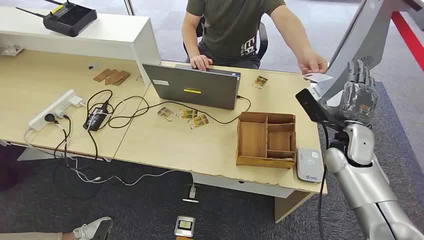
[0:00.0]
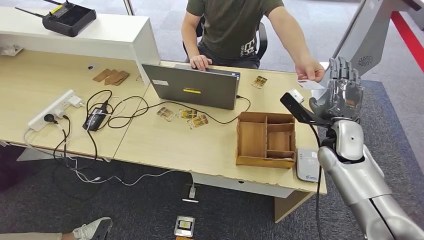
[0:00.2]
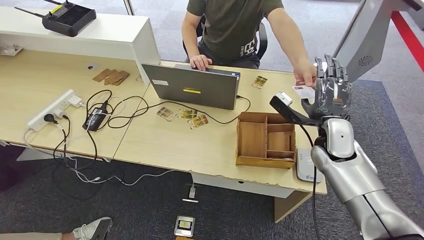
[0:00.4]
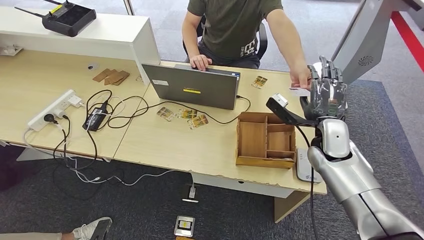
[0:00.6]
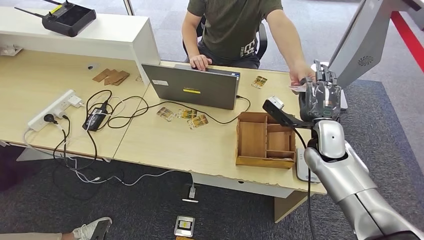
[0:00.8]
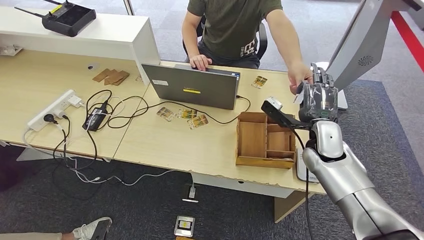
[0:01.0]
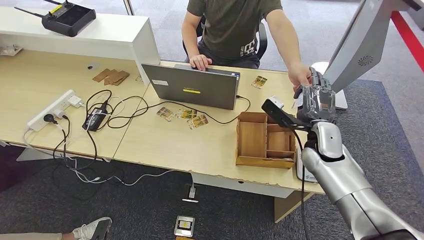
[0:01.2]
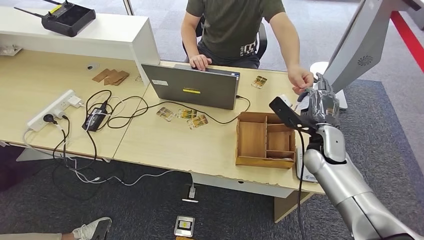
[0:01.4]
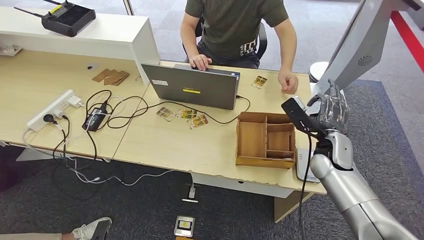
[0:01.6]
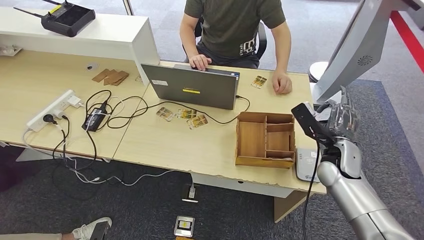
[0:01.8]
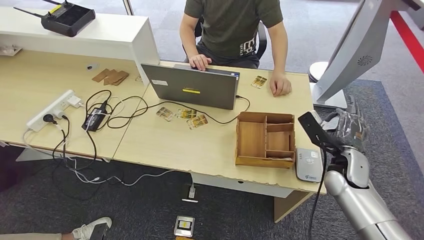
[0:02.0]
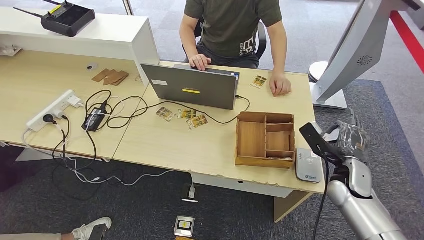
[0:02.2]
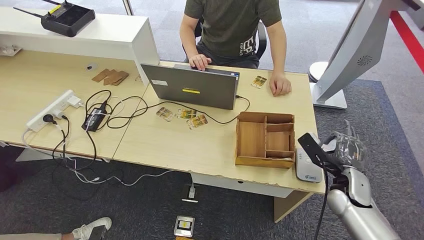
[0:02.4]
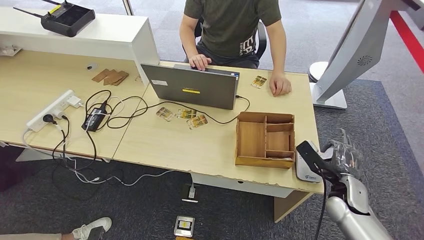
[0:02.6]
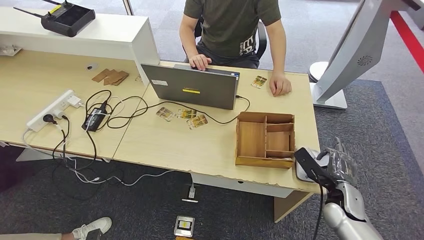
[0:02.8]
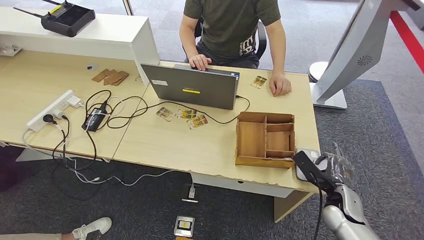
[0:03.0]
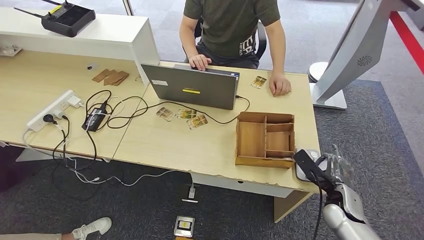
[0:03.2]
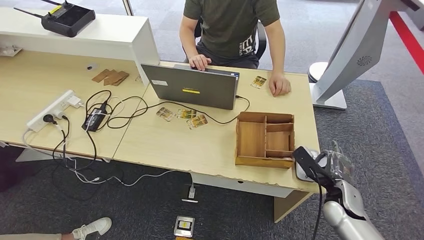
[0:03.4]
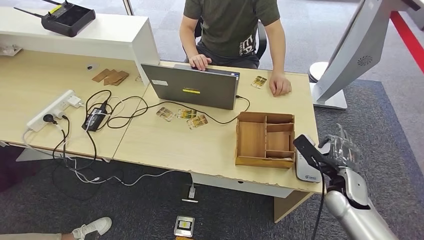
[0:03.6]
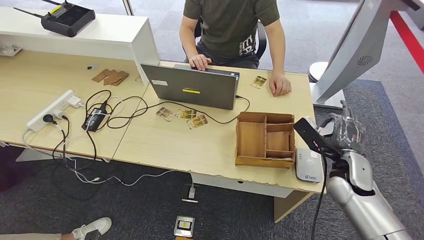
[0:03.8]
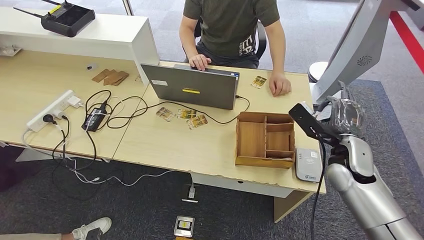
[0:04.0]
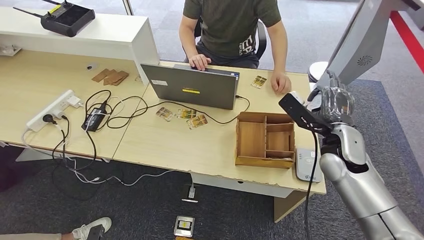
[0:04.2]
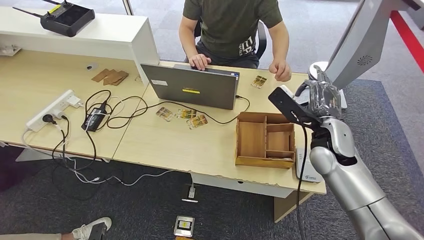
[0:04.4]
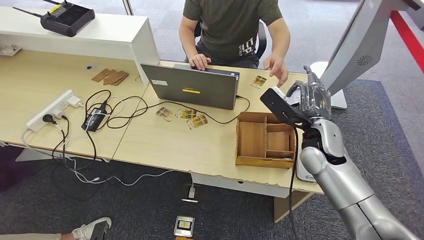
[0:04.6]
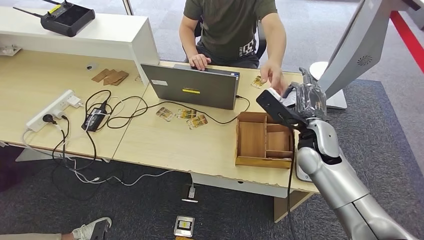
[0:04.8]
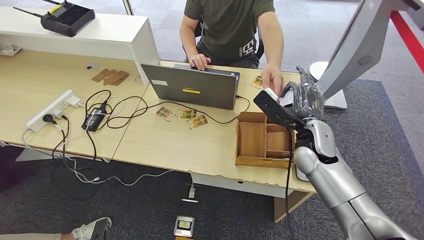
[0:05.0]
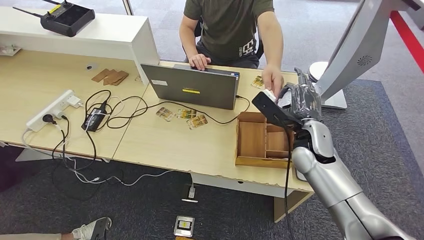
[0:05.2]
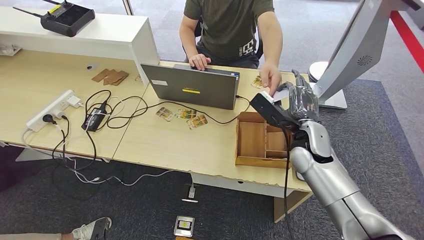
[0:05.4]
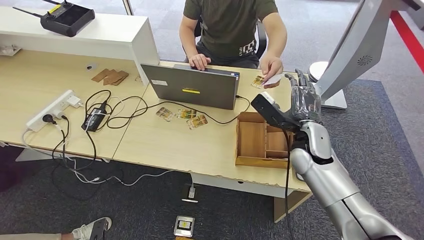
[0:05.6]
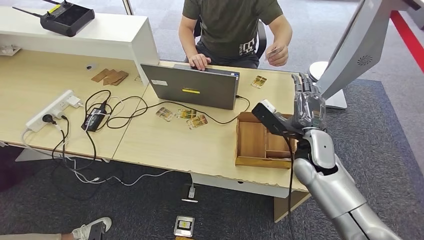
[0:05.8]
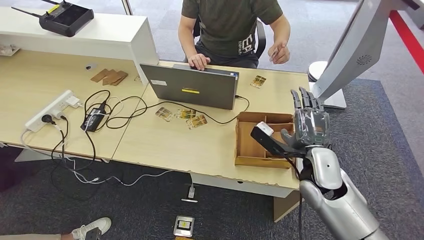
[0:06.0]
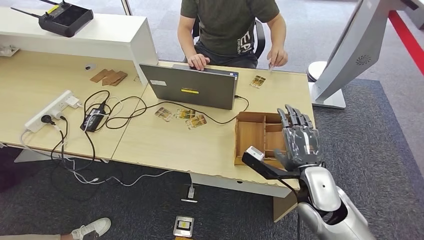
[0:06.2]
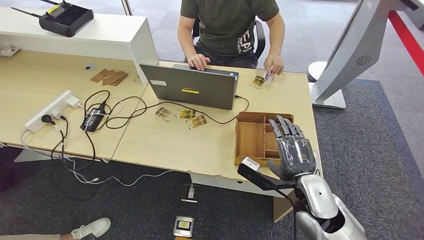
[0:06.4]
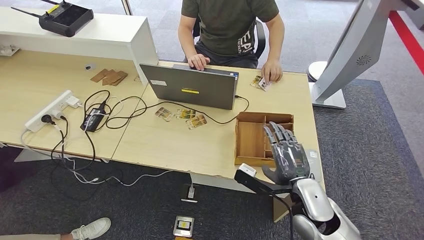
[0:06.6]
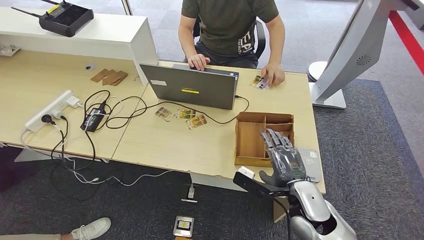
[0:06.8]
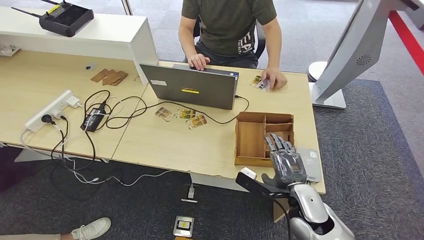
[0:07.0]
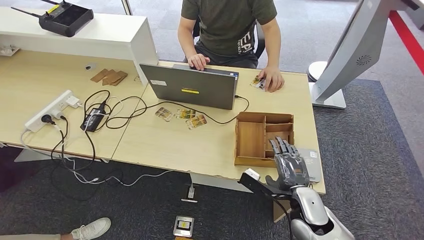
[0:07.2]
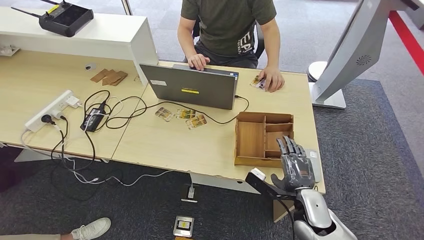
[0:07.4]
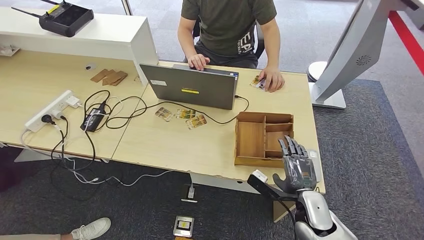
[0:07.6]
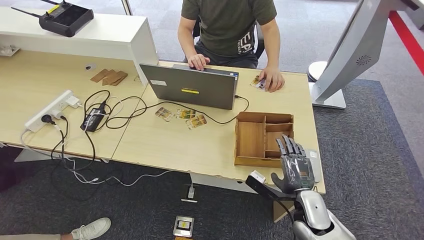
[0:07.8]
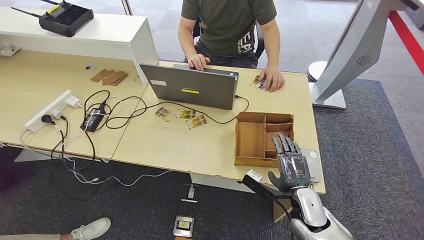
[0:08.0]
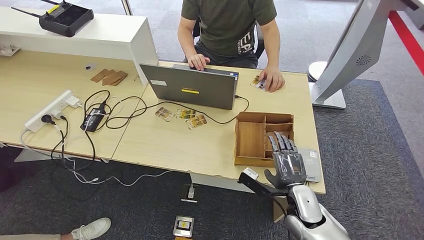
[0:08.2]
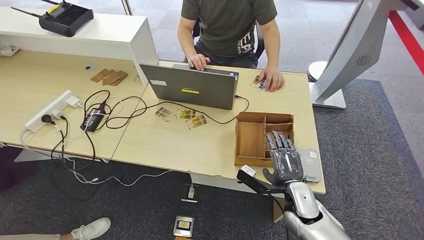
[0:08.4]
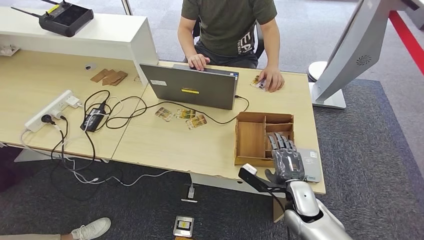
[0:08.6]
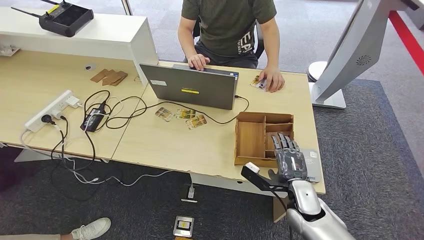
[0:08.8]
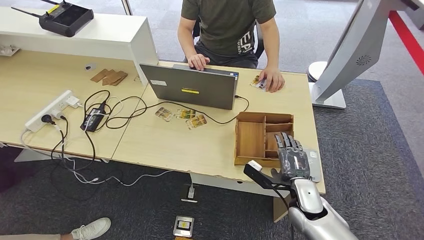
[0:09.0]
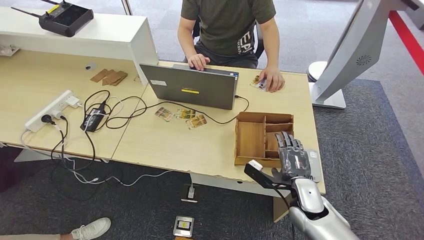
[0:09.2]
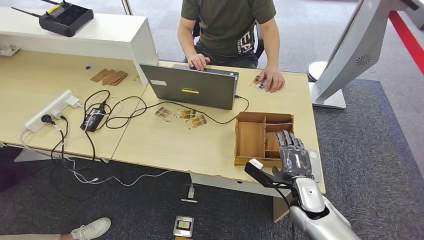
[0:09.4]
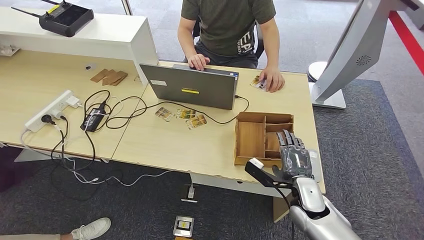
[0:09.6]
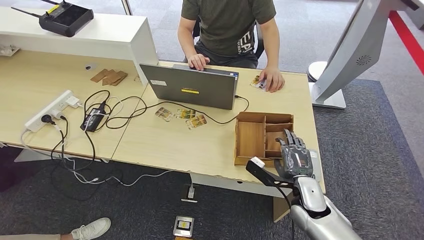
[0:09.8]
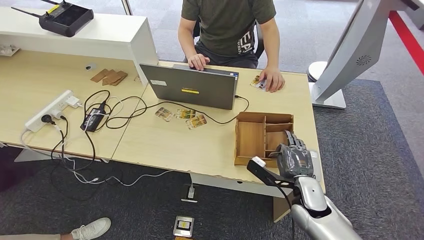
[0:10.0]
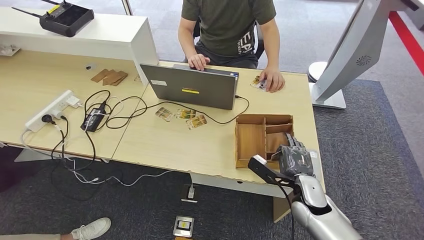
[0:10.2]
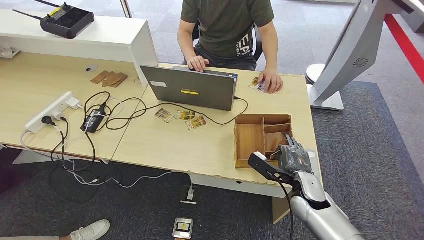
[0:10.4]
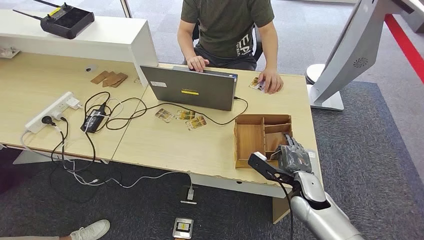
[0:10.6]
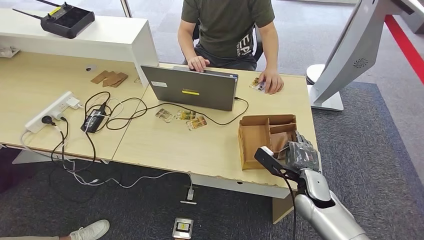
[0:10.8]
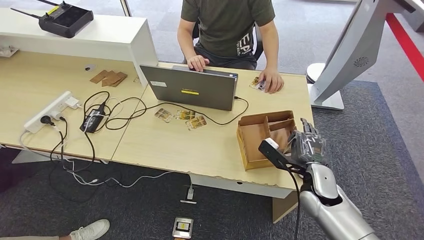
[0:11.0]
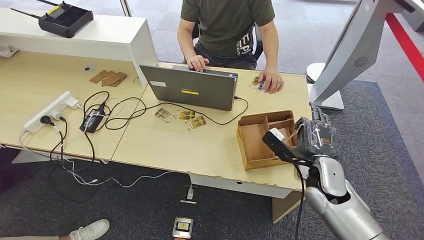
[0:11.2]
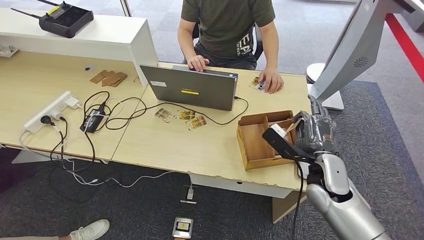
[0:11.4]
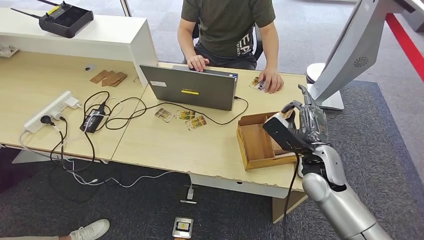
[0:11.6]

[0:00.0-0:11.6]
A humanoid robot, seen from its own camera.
Step, 0:00.0 to 0:02.0: Take the ID card from the person's hand.
Step, 0:02.2 to 0:03.6: Place the ID card on the card reader.
Step, 0:03.8 to 0:06.4: Hand the ID card to the person.
0:01.4 to 0:02.8: The right hand travels downward, backward and to the right by roughly 15 cm.
0:02.8 to 0:04.4: The right hand moves upward, to the left and forward, roughly 20 cm.
0:04.4 to 0:05.8: The hands move only a little.
0:05.8 to 0:07.2: The left hand travels backward by roughly 5 cm. Meanwhile the right hand travels backward and downward by approximately 15 cm.
0:07.2 to 0:10.2: The hands stay close to where they were, moving slightly.
0:10.2 to 0:11.6: The right hand moves upward, about 10 cm.

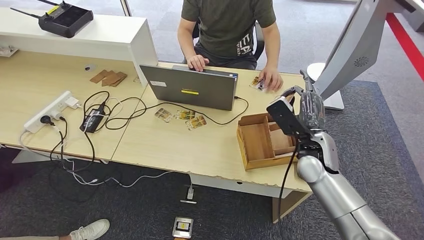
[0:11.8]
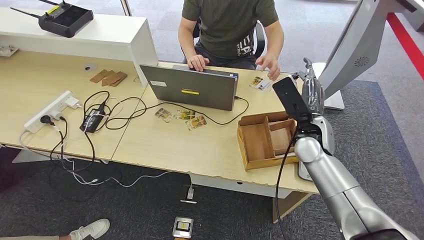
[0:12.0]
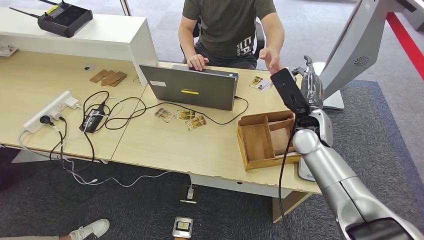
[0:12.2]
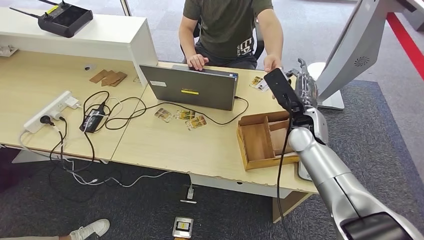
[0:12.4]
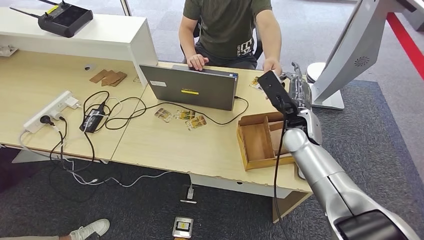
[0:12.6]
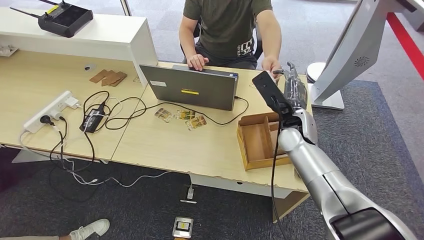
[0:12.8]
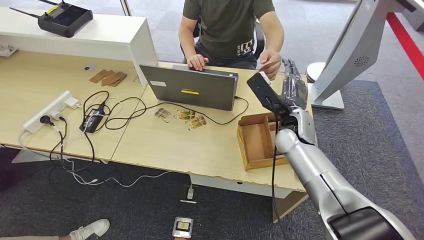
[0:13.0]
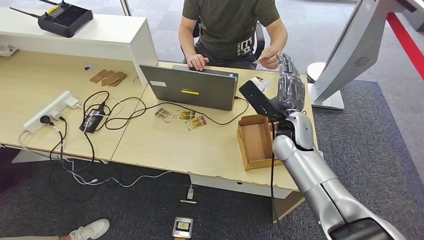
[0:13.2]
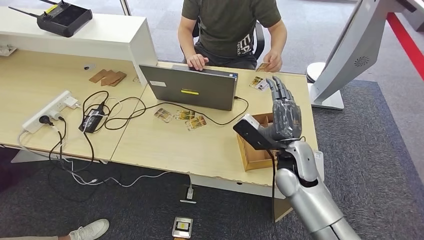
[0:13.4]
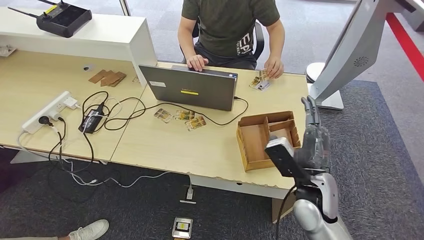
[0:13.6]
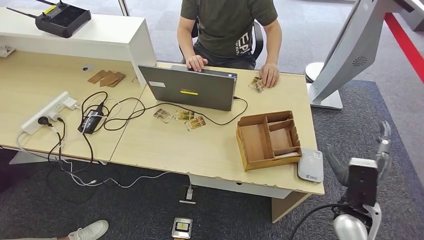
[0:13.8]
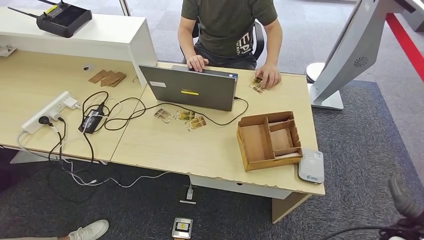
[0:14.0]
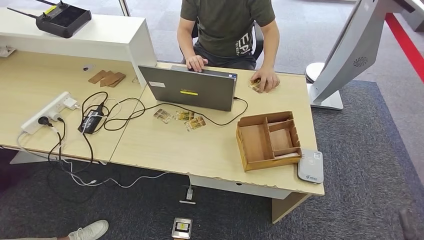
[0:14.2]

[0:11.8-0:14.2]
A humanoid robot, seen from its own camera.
Step, 0:12.4 to 0:14.2: Hand the room key to the person.
0:11.8 to 0:13.0: The right hand goes roughly 5 cm forward.
0:13.0 to 0:14.2: The left hand travels backward by about 5 cm. The right hand is displaced to the right, backward and downward by roughly 40 cm.

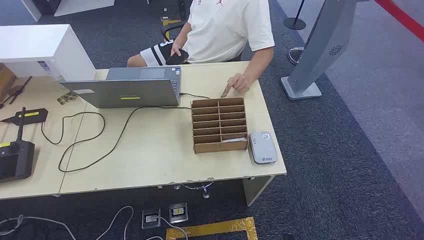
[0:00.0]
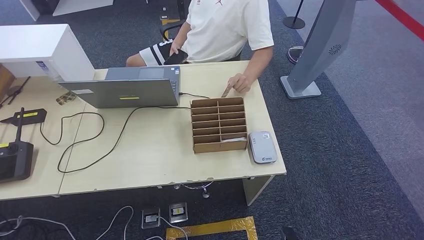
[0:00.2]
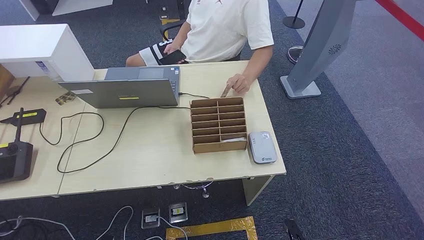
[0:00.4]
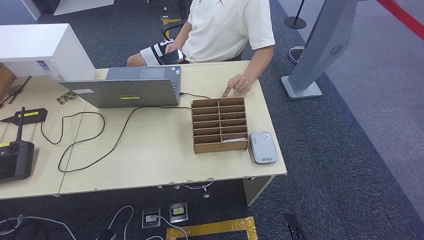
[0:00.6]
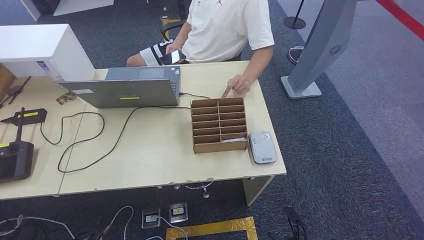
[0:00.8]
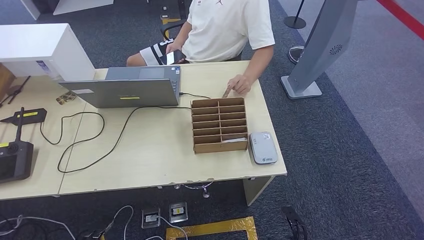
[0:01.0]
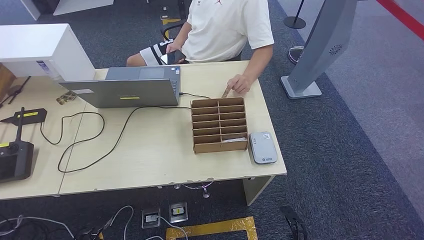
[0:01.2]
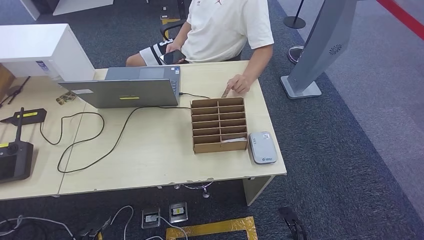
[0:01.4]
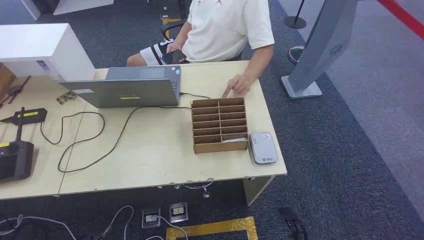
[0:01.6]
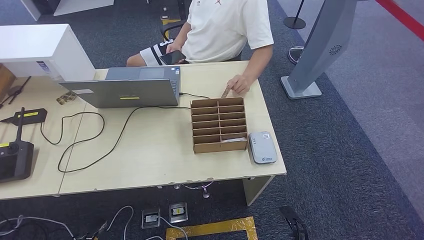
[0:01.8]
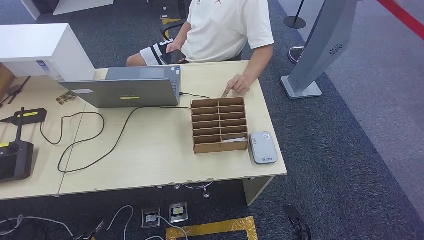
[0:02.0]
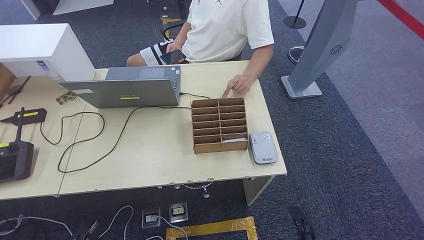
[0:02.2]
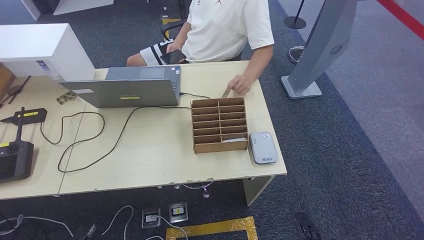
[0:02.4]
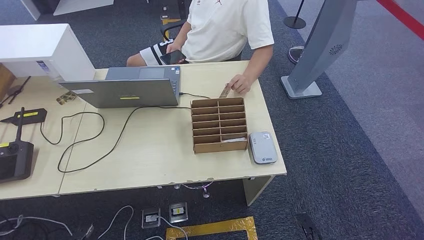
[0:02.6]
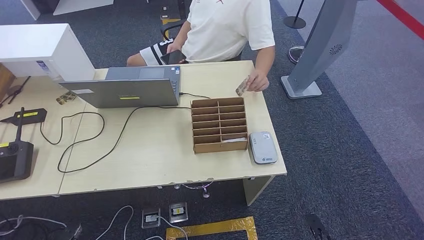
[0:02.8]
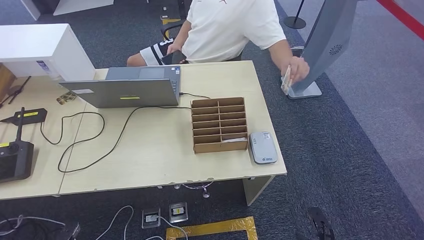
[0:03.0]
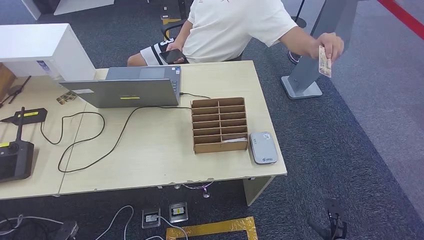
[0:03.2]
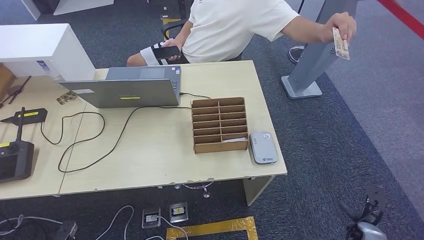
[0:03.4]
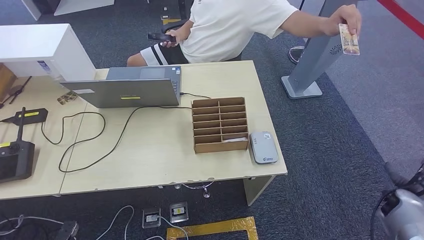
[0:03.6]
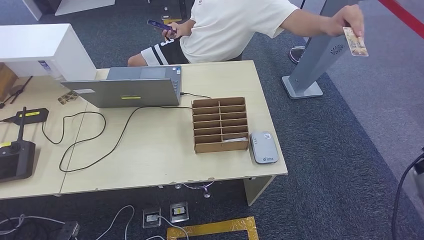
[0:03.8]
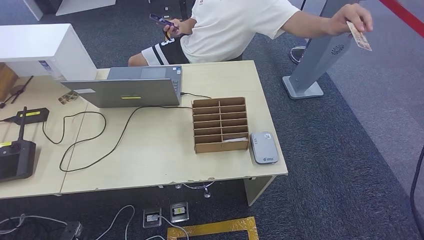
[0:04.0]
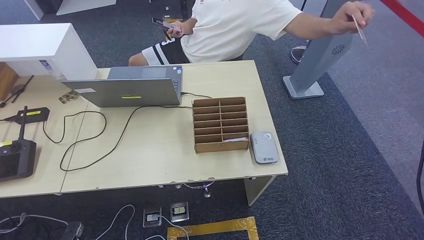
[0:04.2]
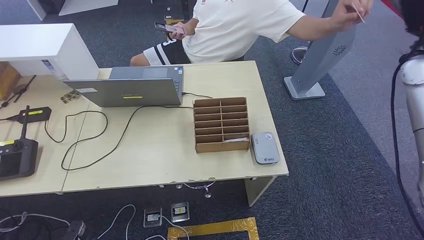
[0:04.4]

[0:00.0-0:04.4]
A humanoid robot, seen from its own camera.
0:01.4 to 0:03.0: The left hand ends up roughly 5 cm from where it was. Meanwhile the right hand is displaced to the right by approximately 5 cm.
0:03.0 to 0:04.4: The right hand shifts about 60 cm upward and forward.
